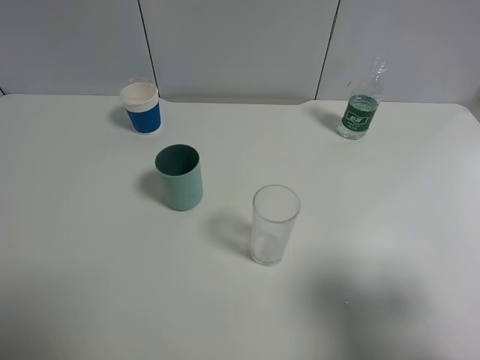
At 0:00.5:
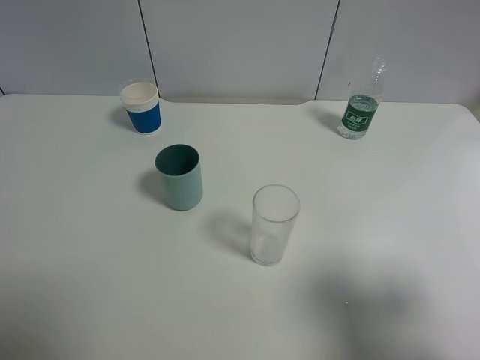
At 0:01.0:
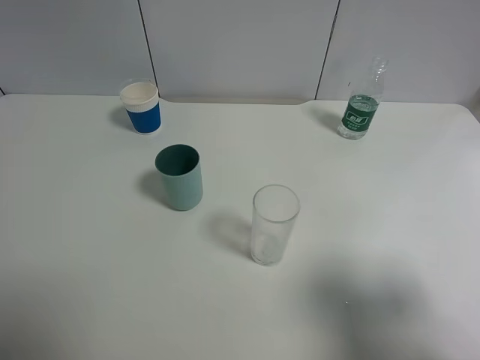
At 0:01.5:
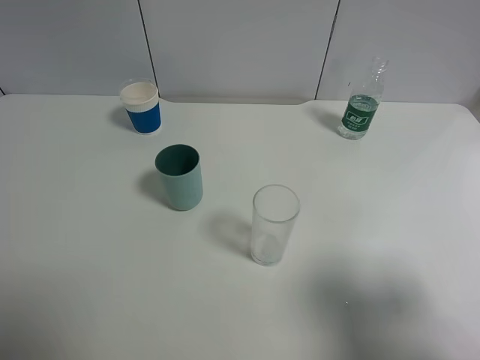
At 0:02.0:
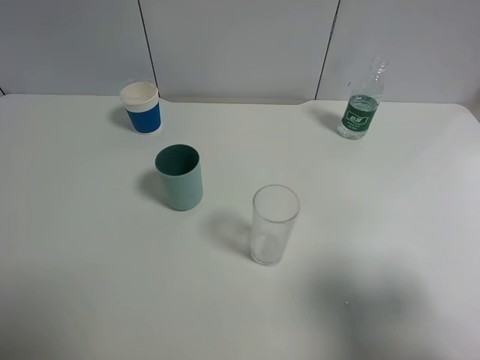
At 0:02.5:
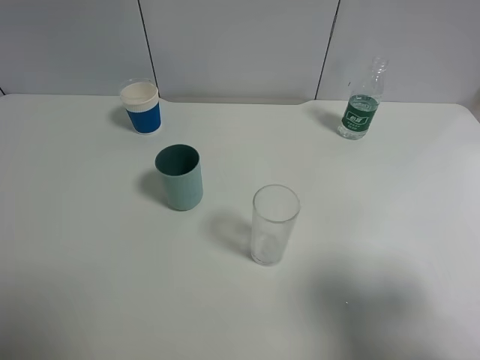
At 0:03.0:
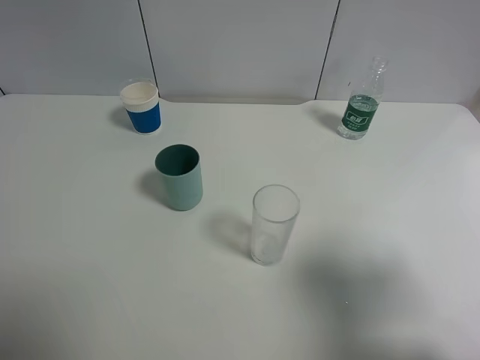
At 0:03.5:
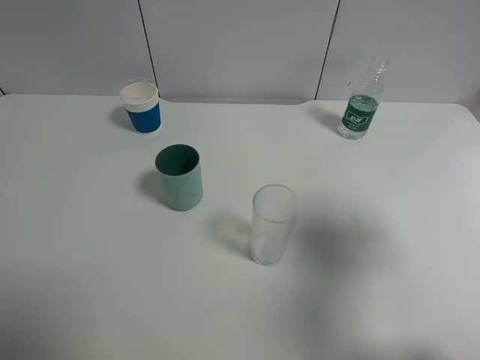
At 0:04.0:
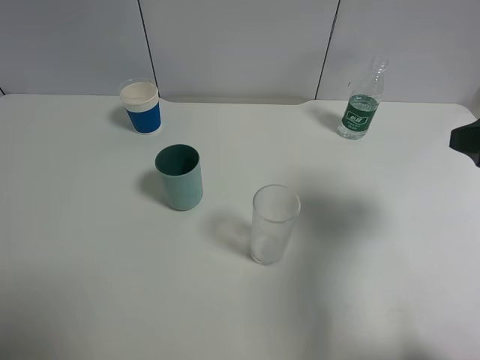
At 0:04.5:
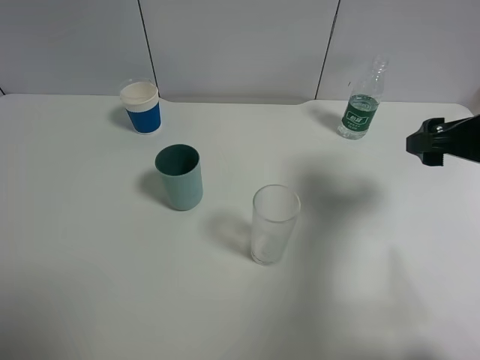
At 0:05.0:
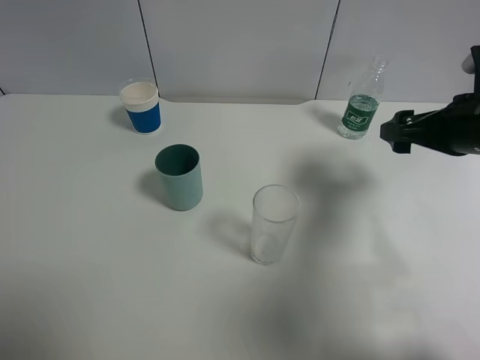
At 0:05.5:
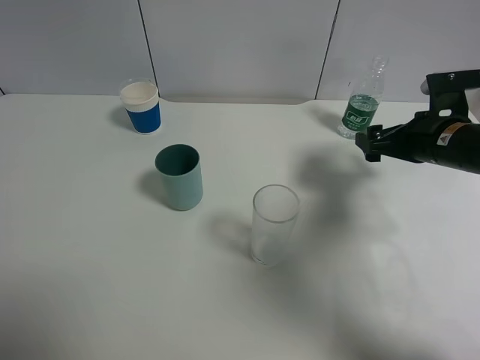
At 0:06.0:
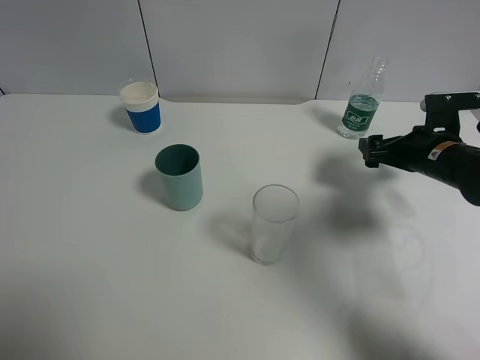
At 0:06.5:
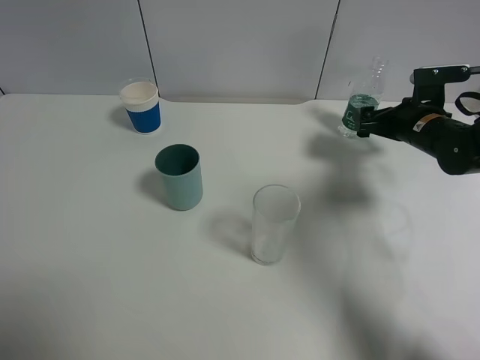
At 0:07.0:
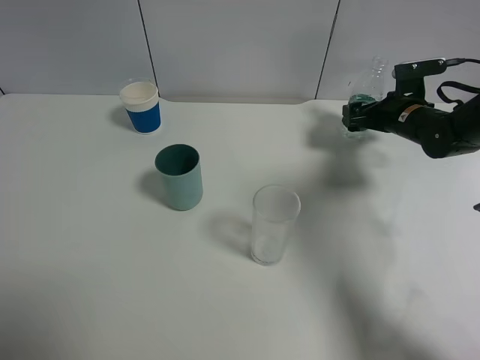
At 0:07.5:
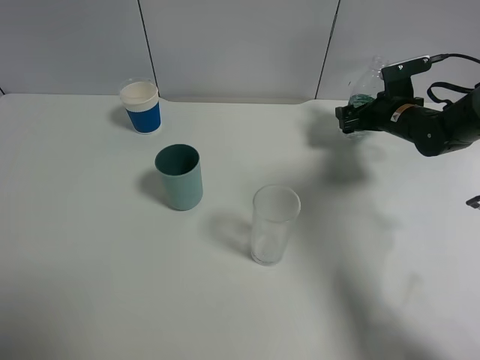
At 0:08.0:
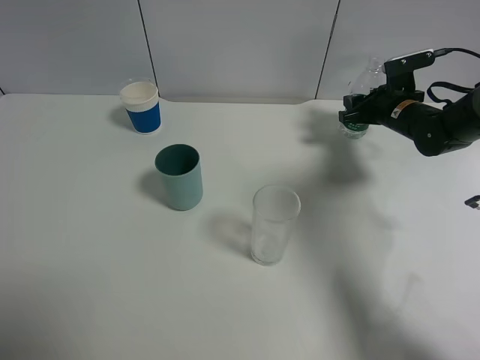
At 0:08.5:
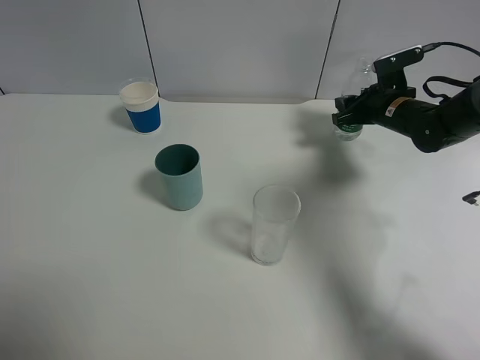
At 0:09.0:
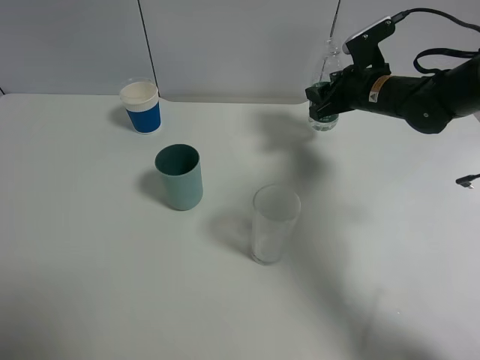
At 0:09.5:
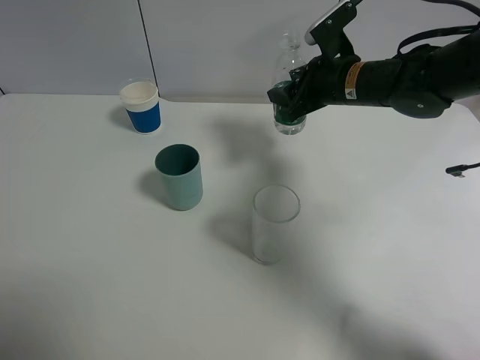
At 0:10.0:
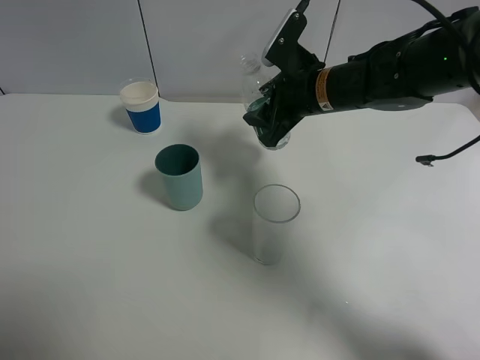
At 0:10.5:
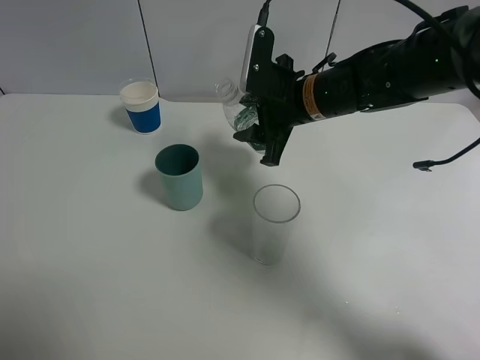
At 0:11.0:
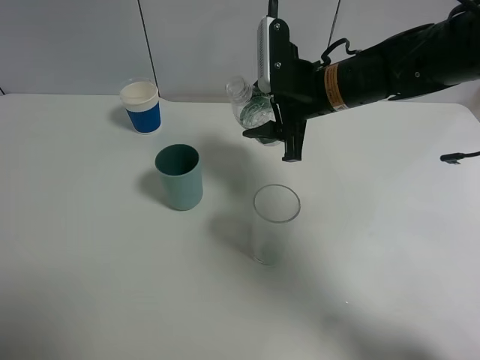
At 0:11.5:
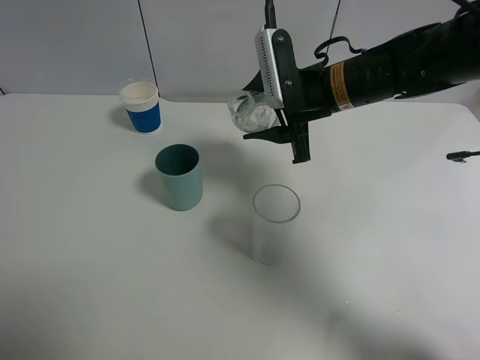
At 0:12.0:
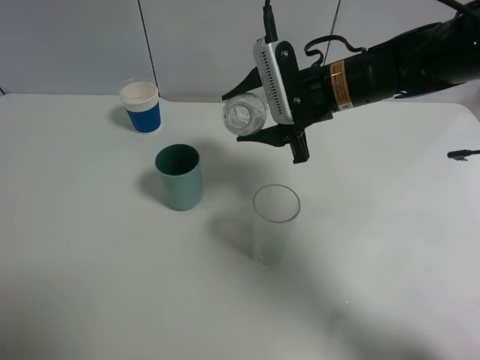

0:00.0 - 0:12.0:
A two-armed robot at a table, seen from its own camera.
Task of the whole recording: use a gripper to hold the bottle of the drink and pour it into a random cup.
Step, 0:00.0 - 0:08.0: Grasp the mineral water bottle with the right gripper.
0:00.0 - 0:02.0: The two grippers keep their place.
0:02.0 - 0:04.0: The right gripper shifts roughly 15 cm forward.
0:04.0 - 0:06.0: The right gripper moves downward and forward, roughly 20 cm.
0:06.0 - 0:08.0: The right gripper is displaced forward by approximately 10 cm, and closes.
0:08.0 - 0:10.0: The right gripper shifts about 20 cm to the left, upward and backward.

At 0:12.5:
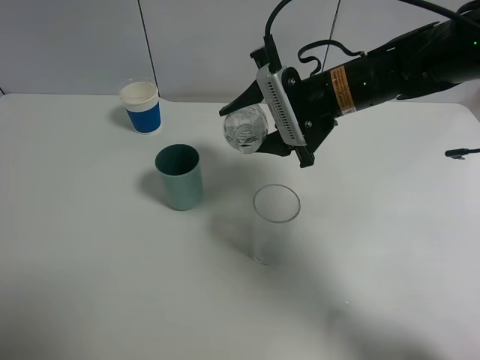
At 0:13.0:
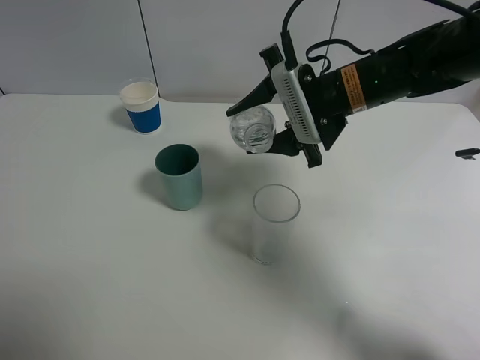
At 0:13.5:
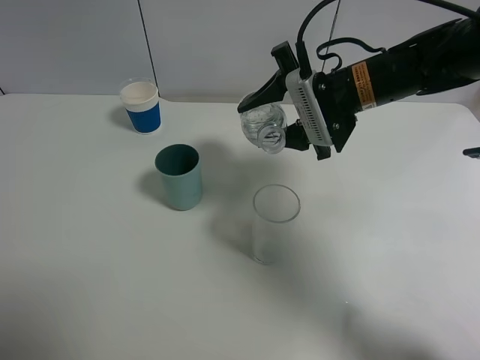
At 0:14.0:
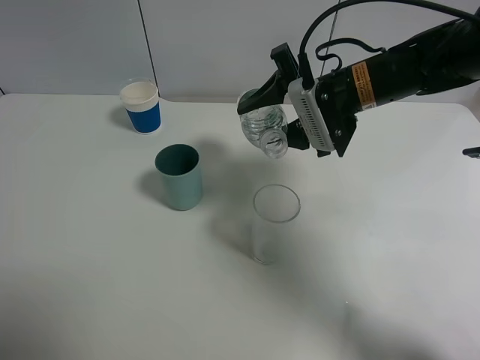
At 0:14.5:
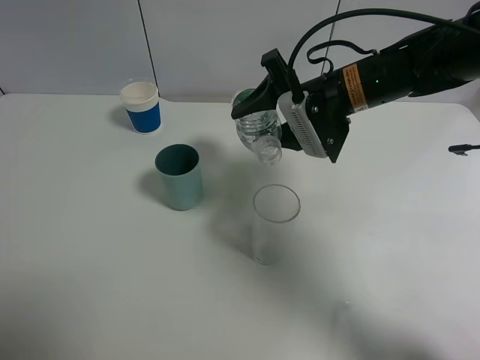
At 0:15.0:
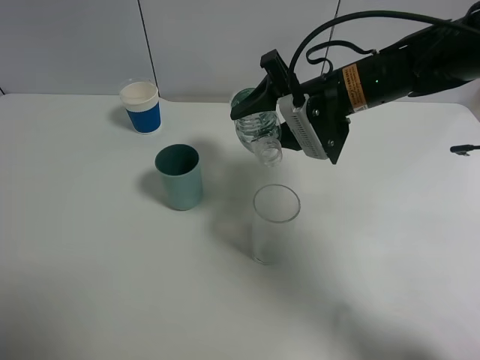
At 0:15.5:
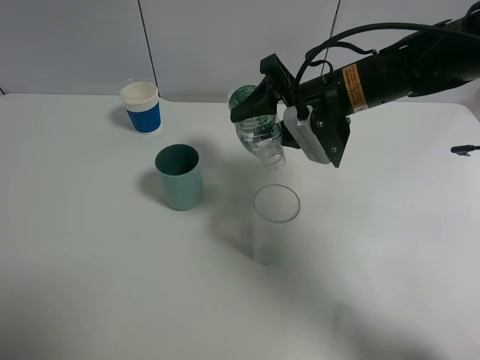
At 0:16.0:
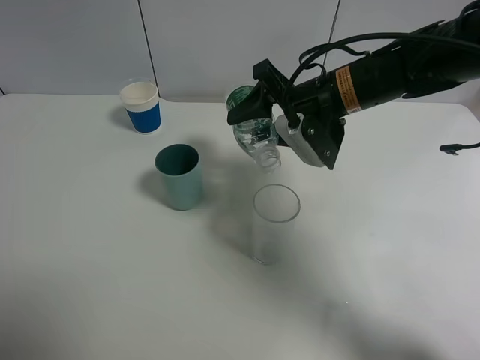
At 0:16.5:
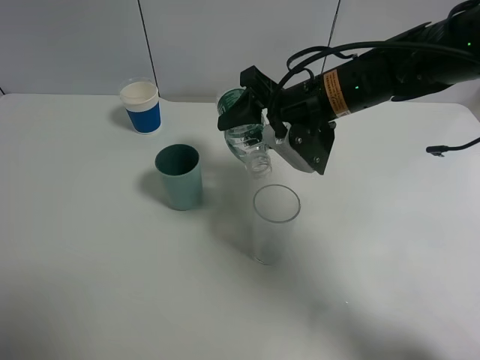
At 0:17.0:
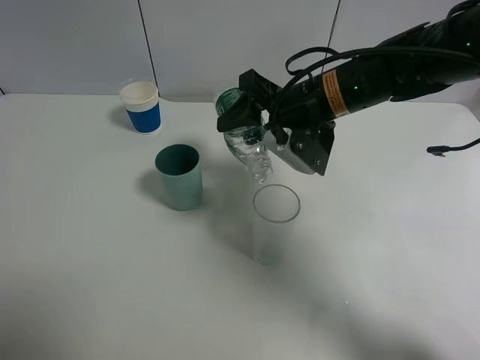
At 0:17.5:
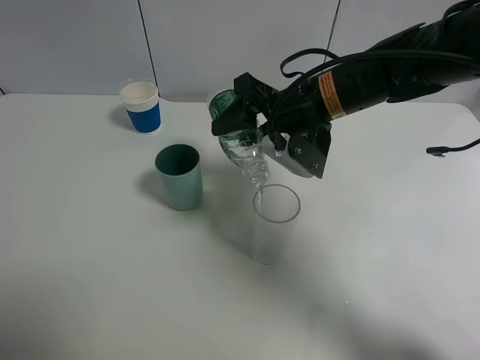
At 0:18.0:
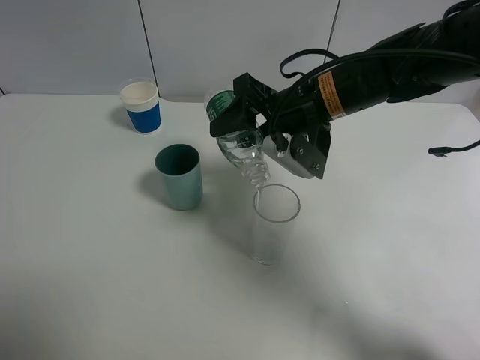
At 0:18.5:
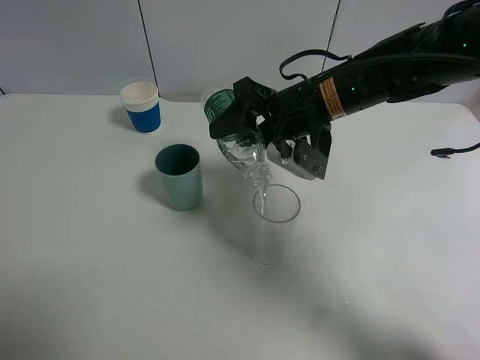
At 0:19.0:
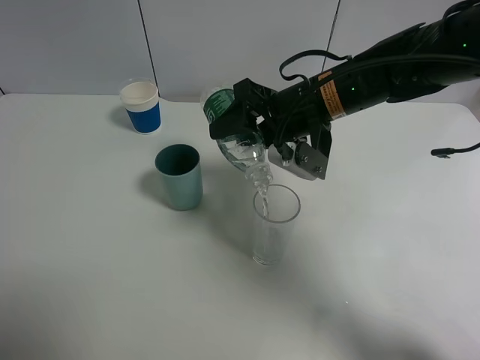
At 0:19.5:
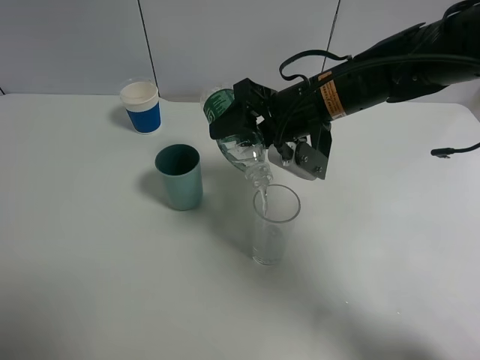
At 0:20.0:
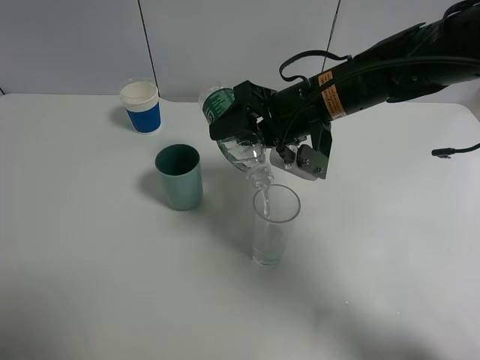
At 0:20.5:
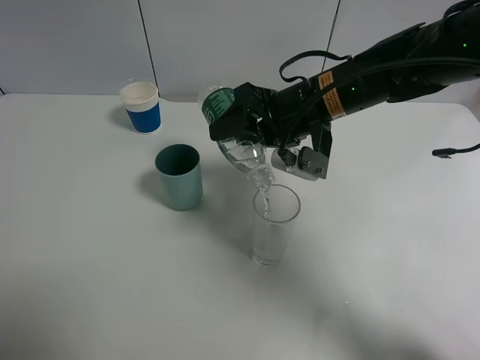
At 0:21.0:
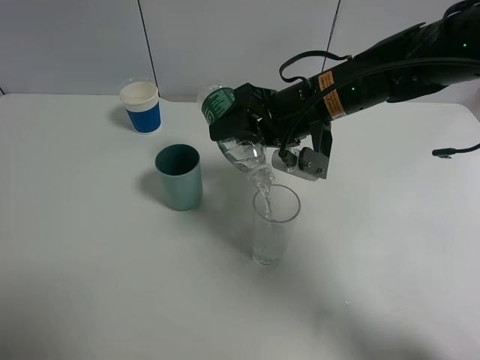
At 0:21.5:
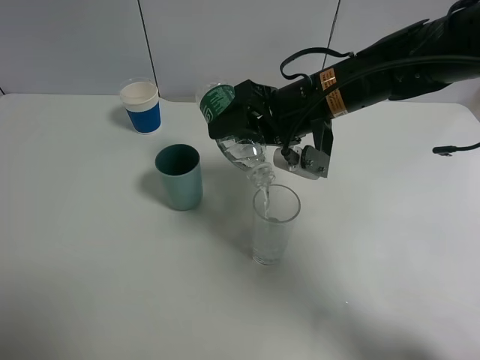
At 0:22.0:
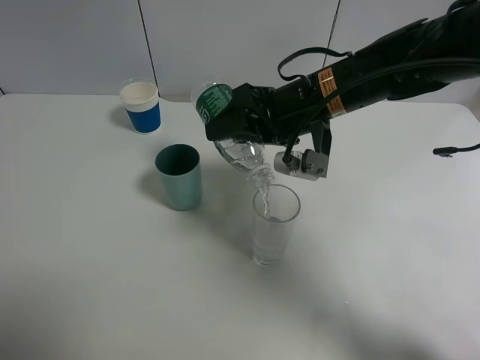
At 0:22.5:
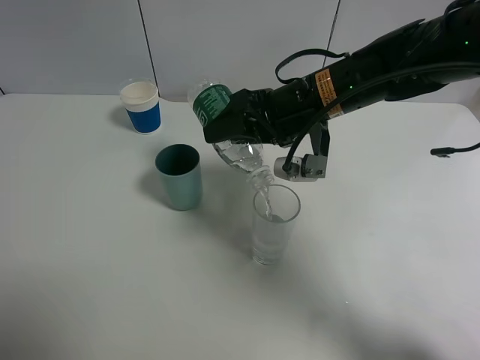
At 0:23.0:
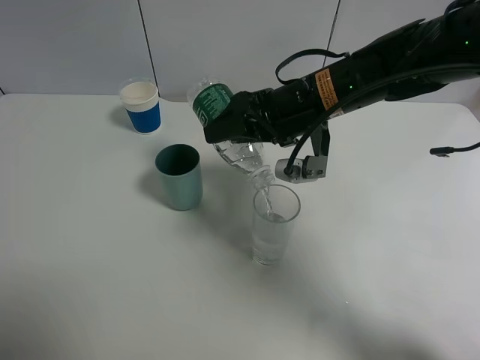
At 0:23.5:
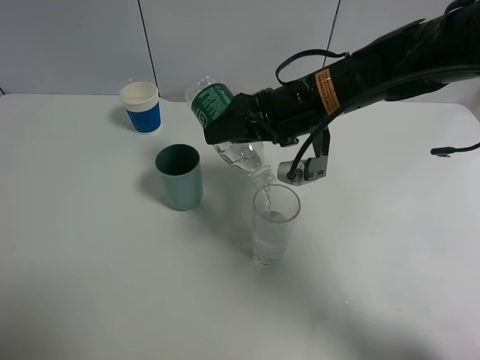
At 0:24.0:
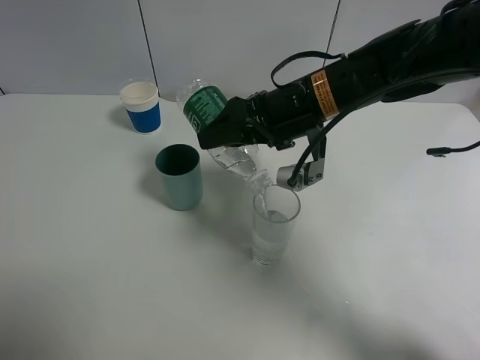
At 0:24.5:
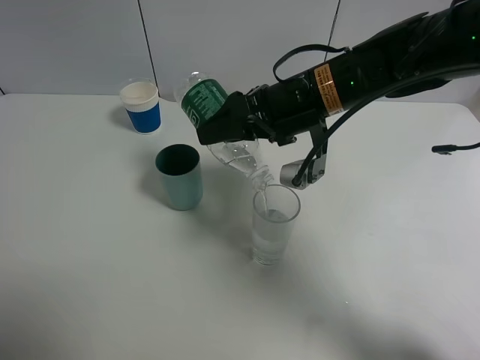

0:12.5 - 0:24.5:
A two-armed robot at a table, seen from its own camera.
Task of the whole recording: use a gripper to hold the bottle of the drink and pour it into a random cup.
0:12.5 - 0:14.5: The grippers move only a little.
0:14.5 - 0:16.5: The grippers move only a little.
0:16.5 - 0:20.5: The grippers make only small movements.
0:20.5 - 0:24.5: The grippers move only a little.

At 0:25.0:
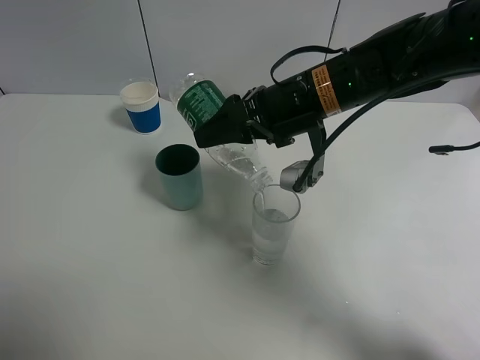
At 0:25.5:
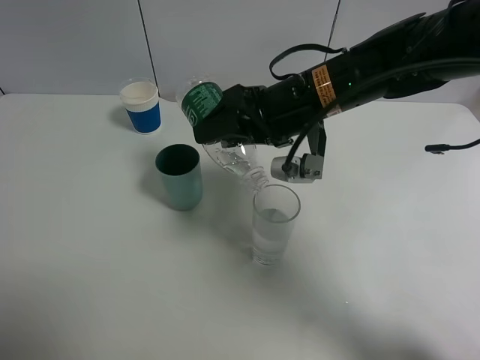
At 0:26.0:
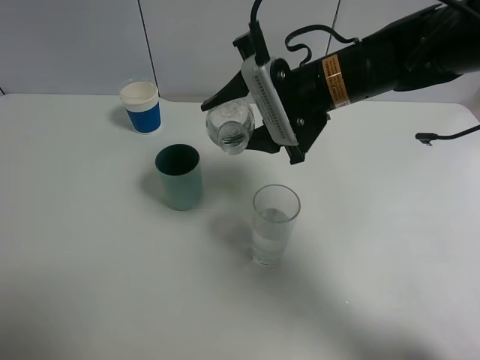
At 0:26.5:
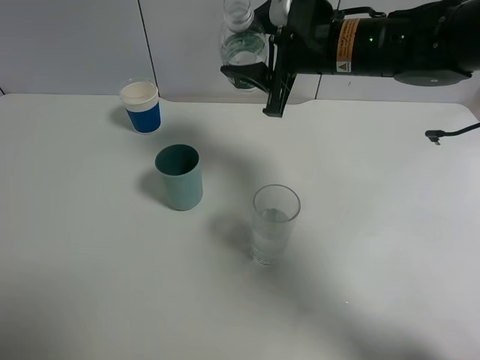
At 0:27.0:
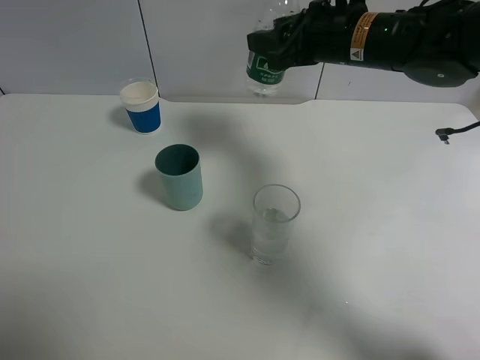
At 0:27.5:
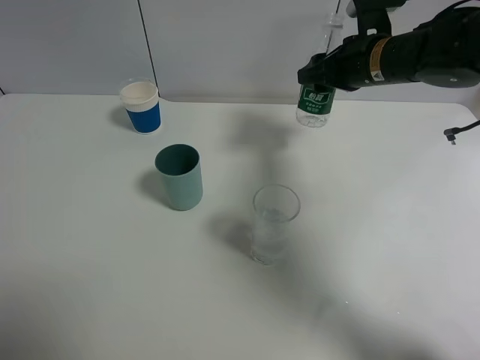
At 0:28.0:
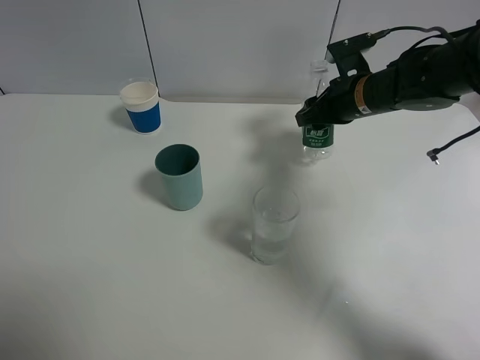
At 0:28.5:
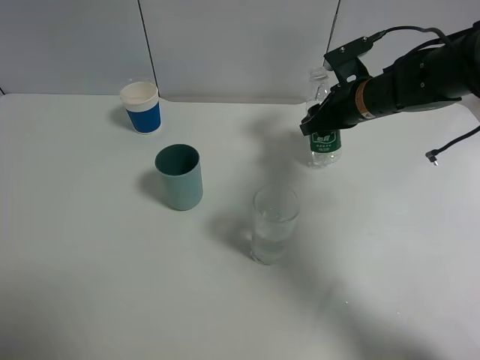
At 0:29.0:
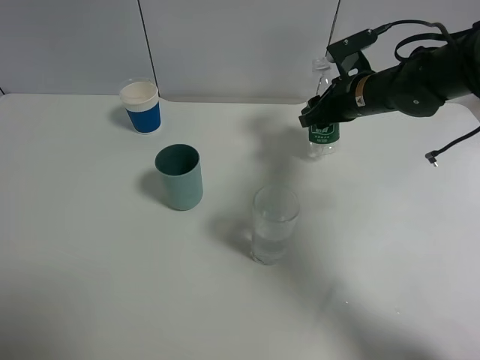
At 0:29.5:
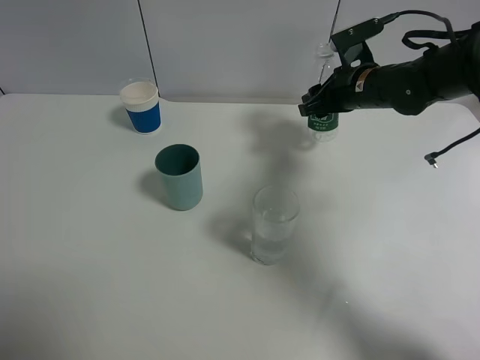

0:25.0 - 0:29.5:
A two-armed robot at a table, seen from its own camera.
Task of the whole recording: use a gripper to hold the bottle of the drink and pour it into a random cup.
0:25.0 - 0:27.0: The right gripper travels forward and to the right by about 10 cm.
0:27.0 - 0:29.5: The right gripper is displaced downward by about 10 cm.
